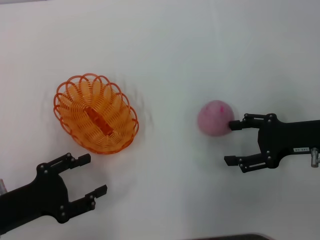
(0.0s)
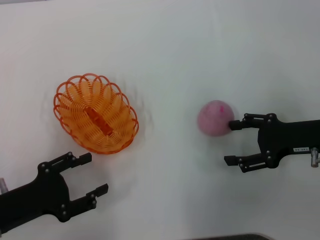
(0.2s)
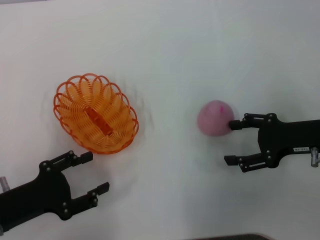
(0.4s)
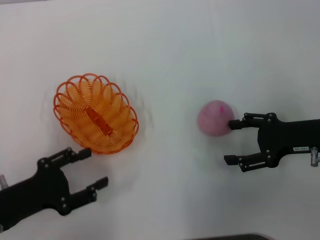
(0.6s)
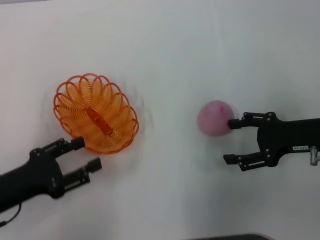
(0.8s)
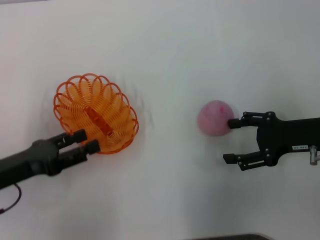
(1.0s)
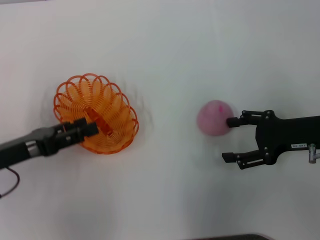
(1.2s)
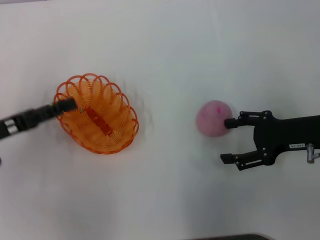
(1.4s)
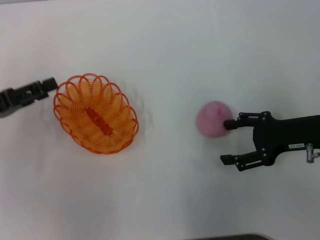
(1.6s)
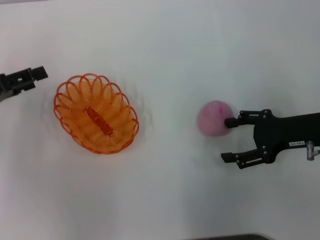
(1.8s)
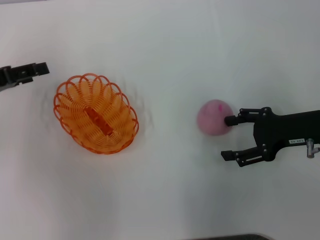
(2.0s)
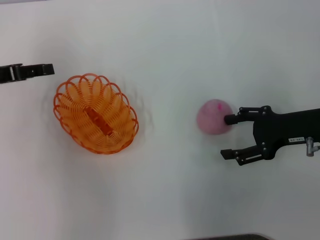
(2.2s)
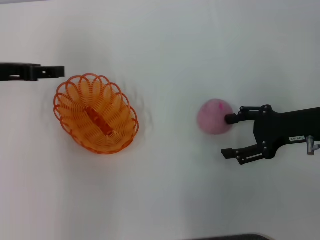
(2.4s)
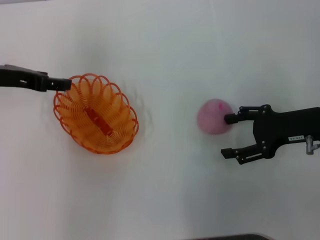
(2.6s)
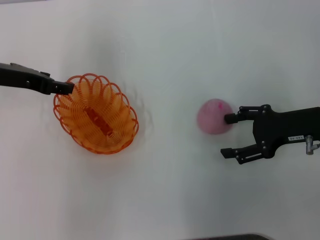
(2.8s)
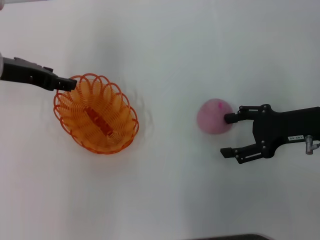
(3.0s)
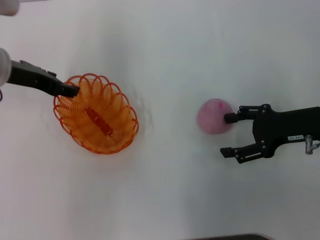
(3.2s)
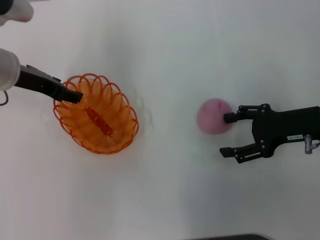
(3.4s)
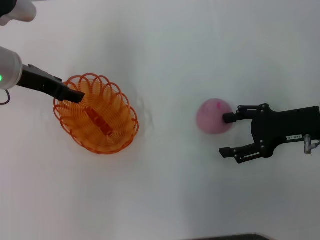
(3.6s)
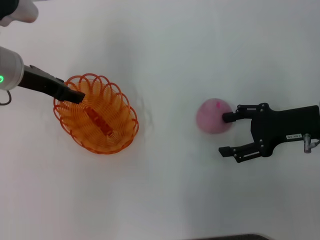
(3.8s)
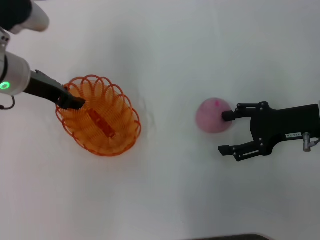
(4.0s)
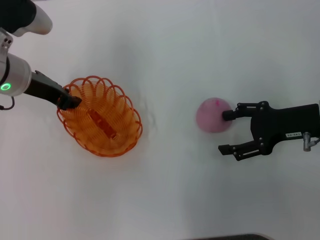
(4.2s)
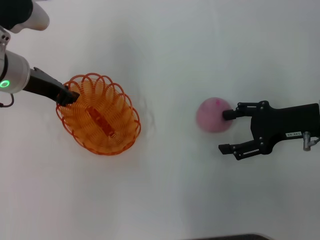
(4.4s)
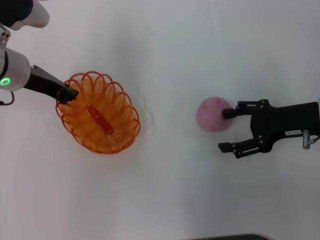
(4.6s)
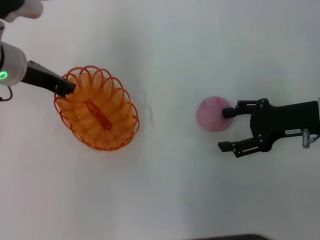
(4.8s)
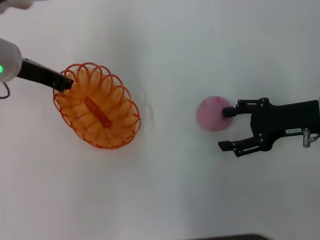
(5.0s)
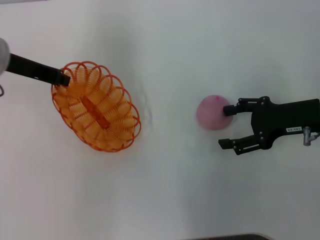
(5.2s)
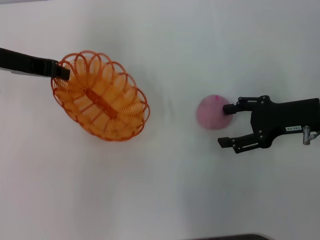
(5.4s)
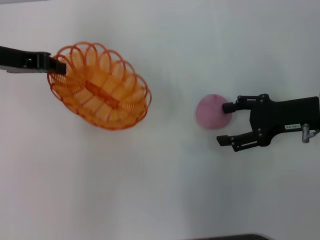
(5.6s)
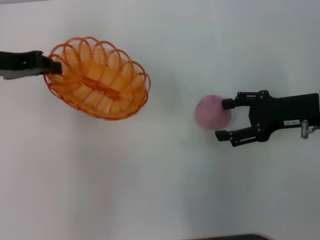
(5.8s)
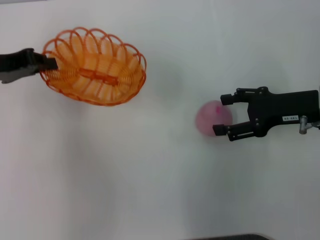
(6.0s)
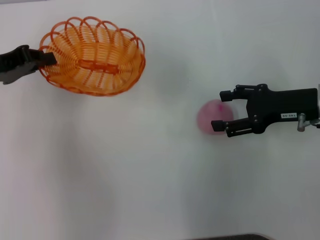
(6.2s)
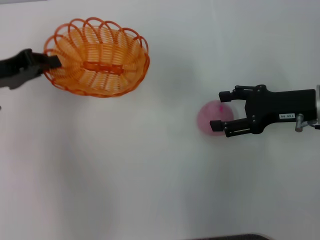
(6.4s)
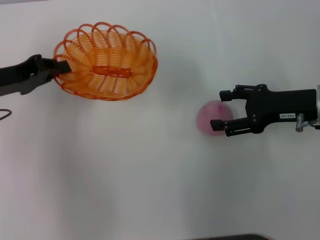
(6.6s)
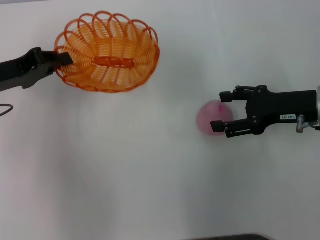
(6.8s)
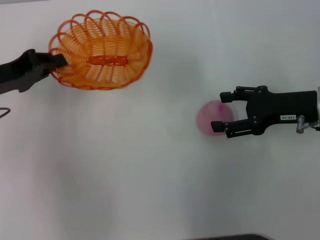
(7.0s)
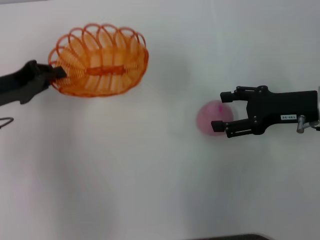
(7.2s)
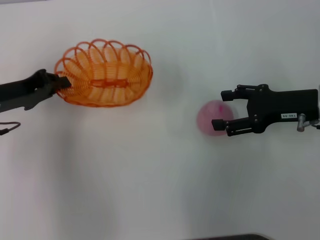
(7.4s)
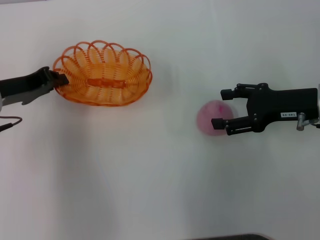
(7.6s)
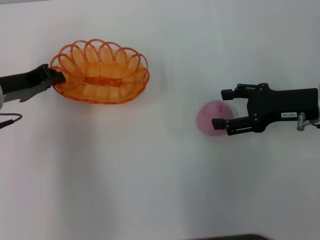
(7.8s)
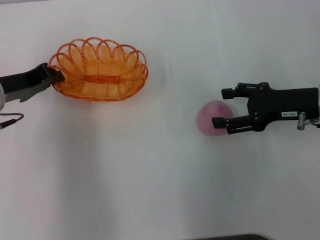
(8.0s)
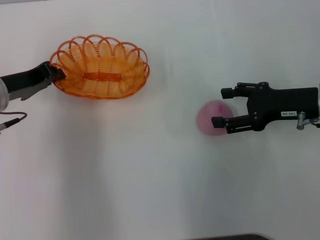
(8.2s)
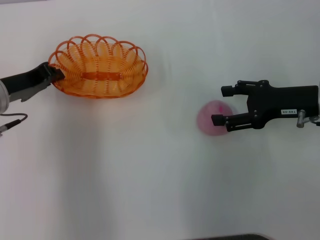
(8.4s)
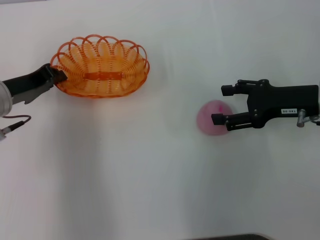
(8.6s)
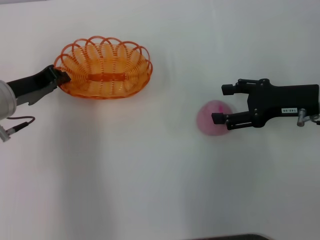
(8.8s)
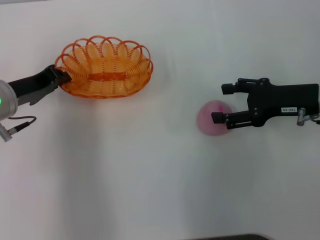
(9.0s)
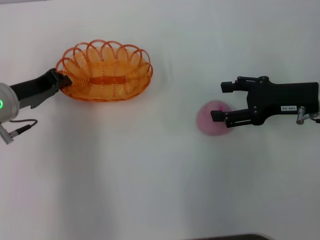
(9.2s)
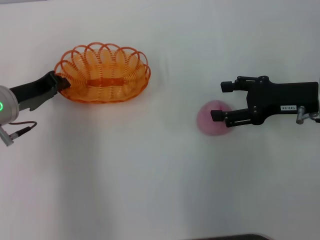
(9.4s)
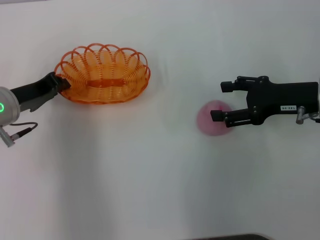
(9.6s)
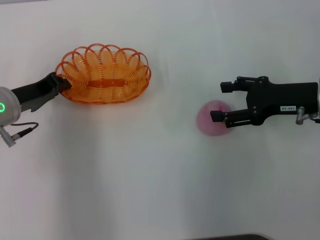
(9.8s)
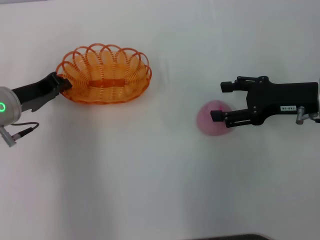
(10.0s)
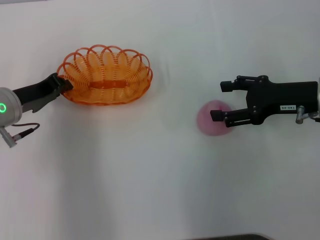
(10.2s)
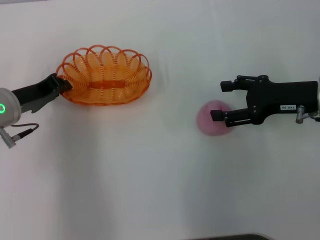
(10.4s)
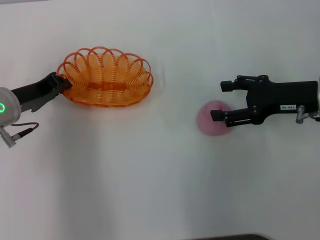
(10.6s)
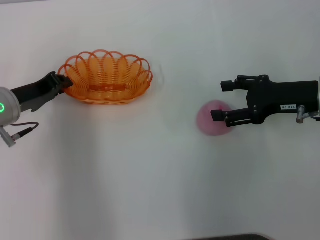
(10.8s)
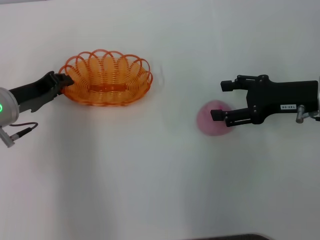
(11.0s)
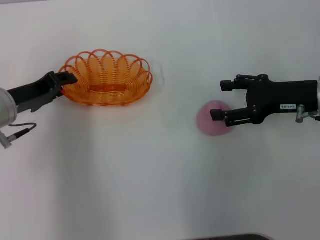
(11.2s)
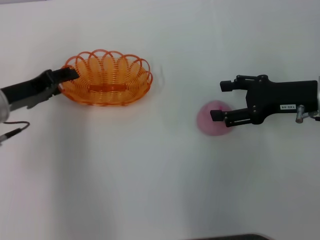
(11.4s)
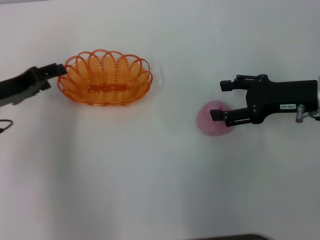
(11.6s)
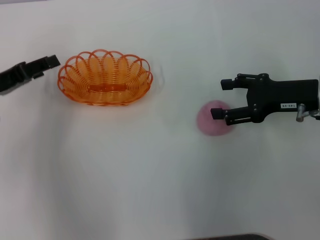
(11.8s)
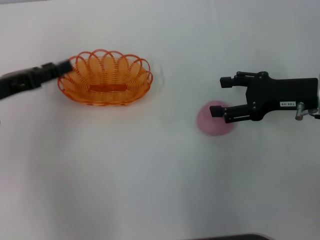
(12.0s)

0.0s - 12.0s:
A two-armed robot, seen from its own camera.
Step, 0.0s - 5.0s: Pick up the basket with the left gripper.
Step, 5.2s - 11.4s: Move the basket to the center of view with the left gripper.
0.0s - 1.6s: The left gripper goes about 10 cm forward and upward.
1.6s - 3.0s: The left gripper goes roughly 15 cm forward, to the right and upward.
3.0s - 4.4s: The left gripper closes.
4.4s - 6.0s: The left gripper is displaced to the left by approximately 5 cm.
6.0s - 7.6s: The left gripper changes place by some 5 cm.
7.6s - 9.0s: The grippers make only small movements.
9.0s - 10.4s: Both grippers stay about where they are.
10.4s - 12.0s: The left gripper heads to the left, covering roughly 5 cm, and opens up.

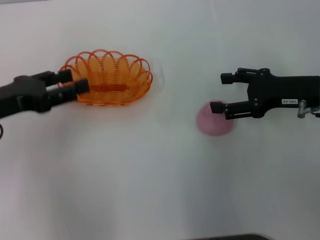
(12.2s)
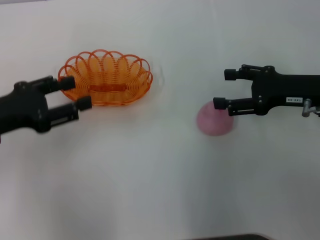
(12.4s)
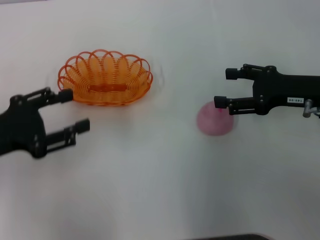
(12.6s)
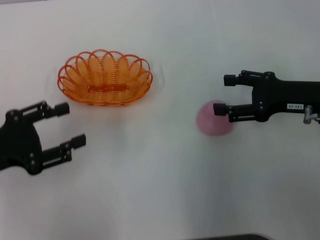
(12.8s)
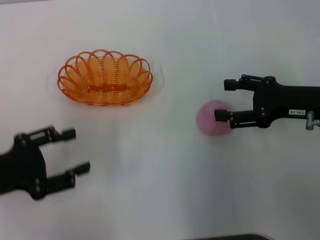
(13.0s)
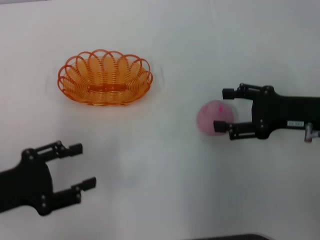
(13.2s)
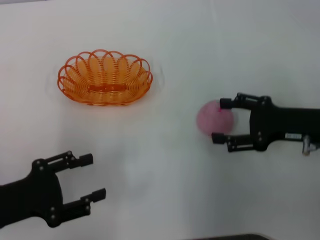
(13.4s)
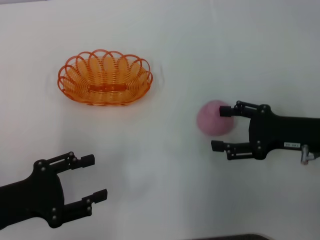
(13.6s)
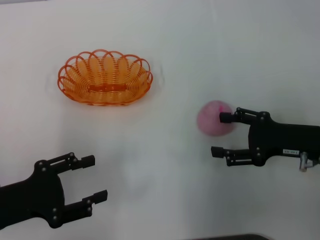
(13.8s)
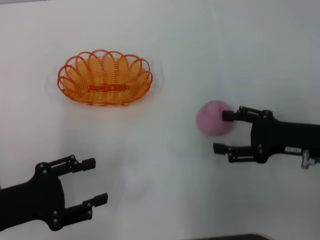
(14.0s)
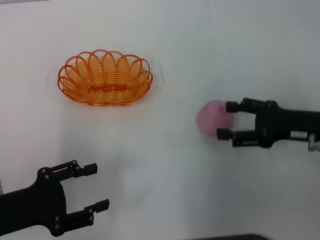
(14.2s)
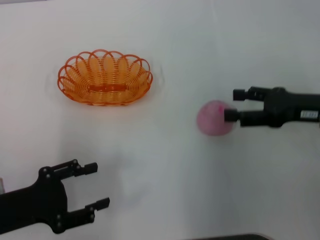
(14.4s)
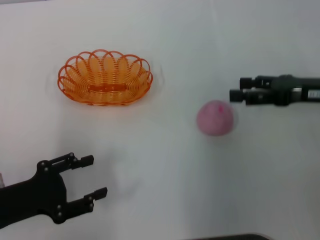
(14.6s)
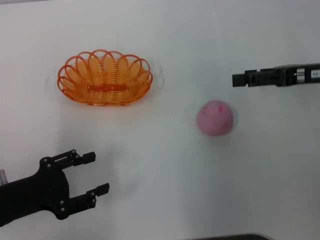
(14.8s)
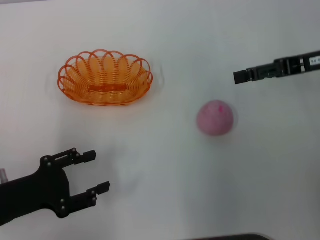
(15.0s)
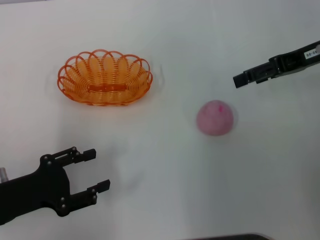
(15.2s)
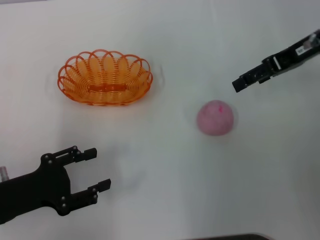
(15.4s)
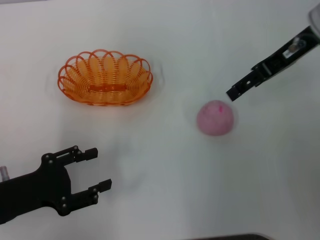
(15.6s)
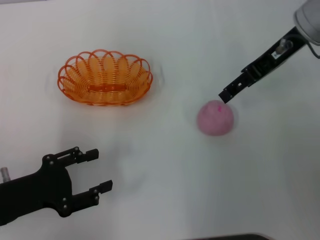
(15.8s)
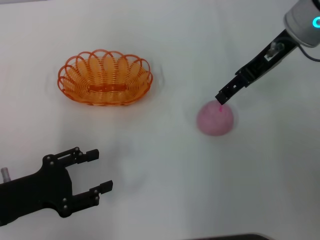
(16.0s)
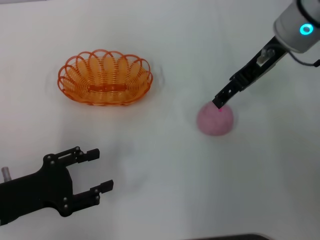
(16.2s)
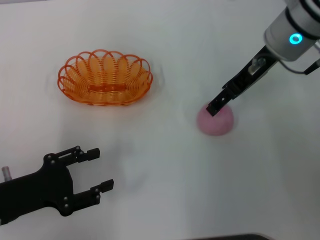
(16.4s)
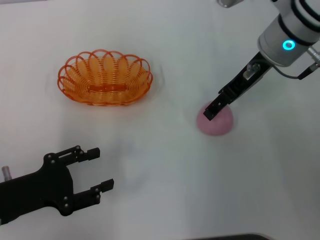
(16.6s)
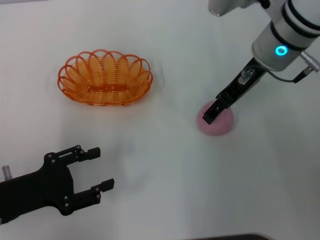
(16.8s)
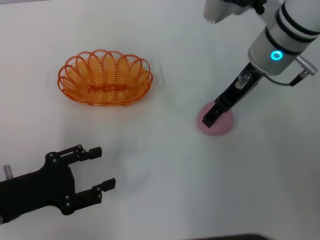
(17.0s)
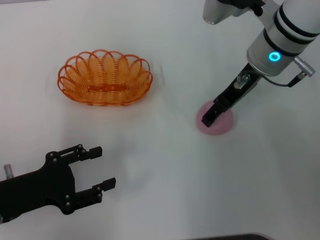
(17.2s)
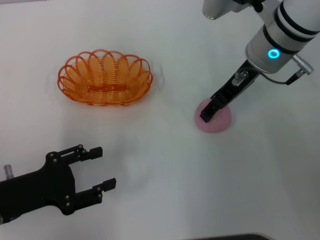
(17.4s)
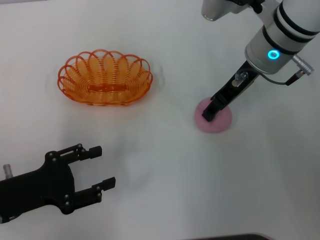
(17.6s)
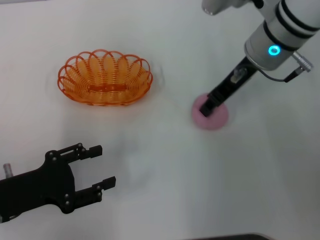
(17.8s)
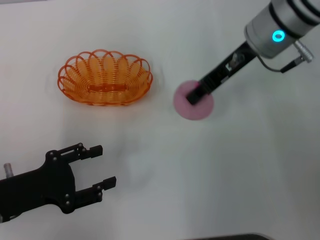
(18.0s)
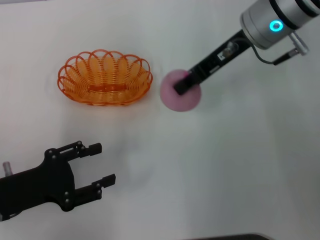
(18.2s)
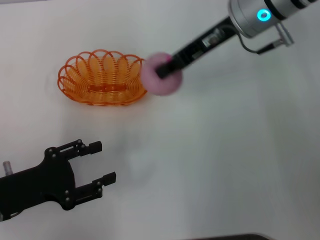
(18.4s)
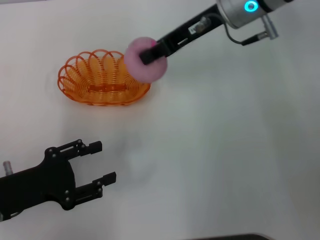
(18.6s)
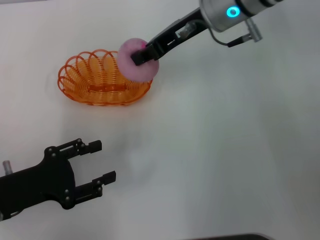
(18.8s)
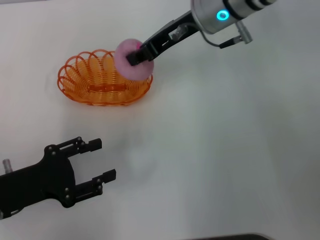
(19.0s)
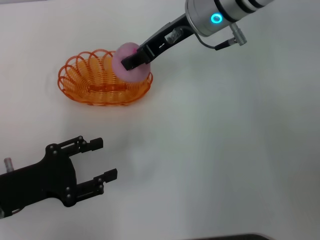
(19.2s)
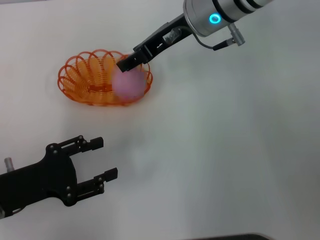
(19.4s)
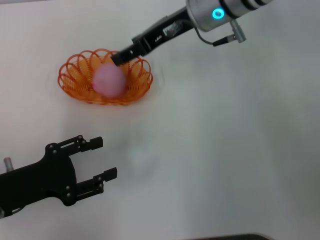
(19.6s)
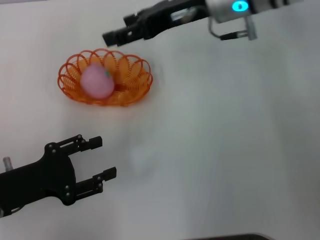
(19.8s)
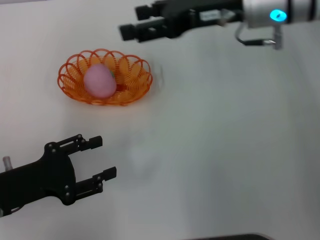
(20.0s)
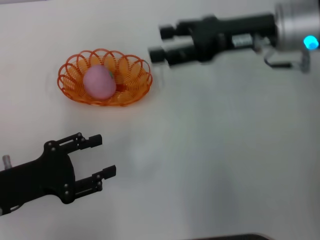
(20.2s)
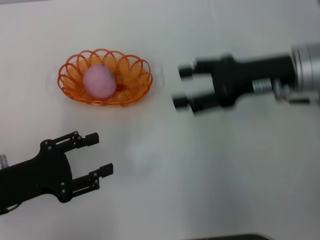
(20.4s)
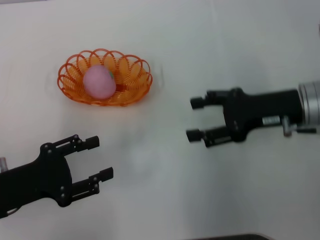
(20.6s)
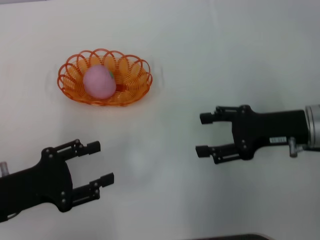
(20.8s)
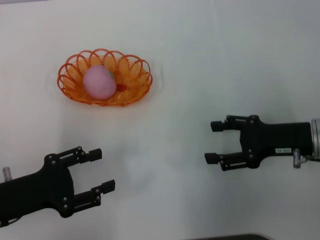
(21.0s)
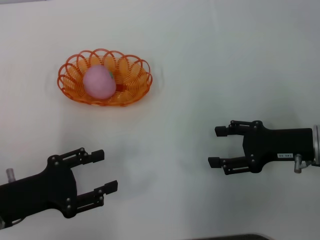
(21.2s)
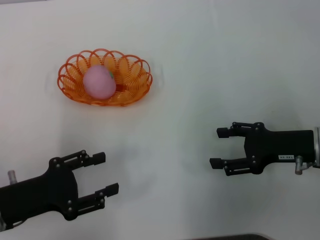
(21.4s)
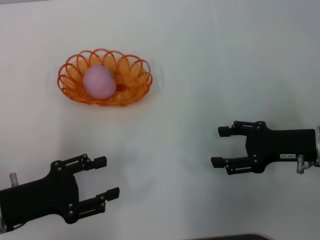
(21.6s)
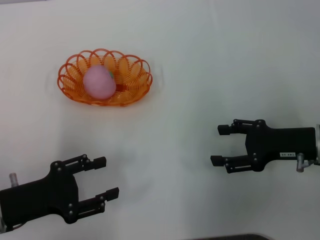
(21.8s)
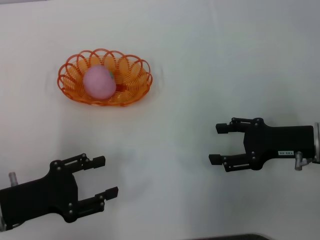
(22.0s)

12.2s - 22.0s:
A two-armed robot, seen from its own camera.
Step, 12.2s - 18.0s: Pick up the peach with the right gripper.
Step, 18.2s - 19.8s: Place the peach into the basket with the right gripper.
12.2s - 13.6s: The right gripper goes approximately 5 cm backward; the left gripper goes roughly 10 cm backward and downward.
13.6s - 15.0s: The right gripper shifts roughly 15 cm upward and forward.
15.0s - 16.4s: The right gripper travels to the left by some 10 cm.
16.4s - 17.8s: The right gripper closes up.
17.8s - 19.2s: The right gripper goes approximately 5 cm to the left.
19.2s - 20.6s: The right gripper shifts some 20 cm to the right, backward and downward, and opens up.
20.6s - 22.0s: The right gripper moves downward, some 5 cm.
